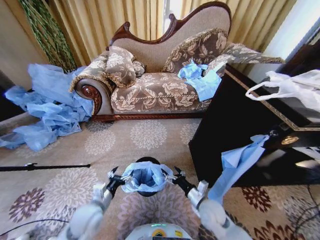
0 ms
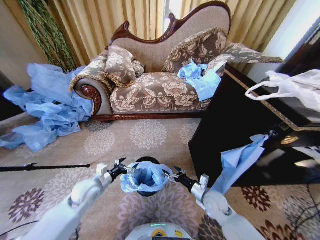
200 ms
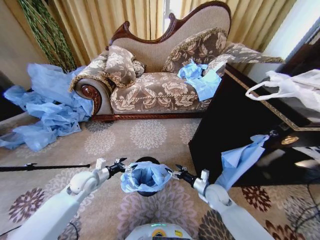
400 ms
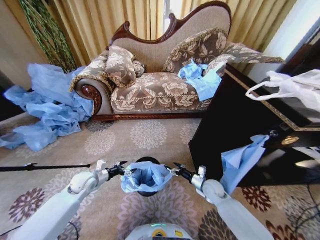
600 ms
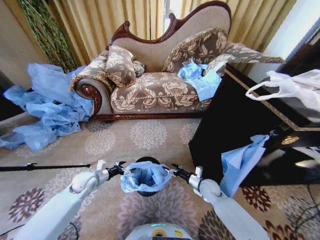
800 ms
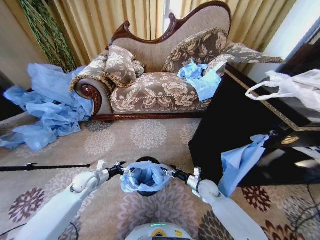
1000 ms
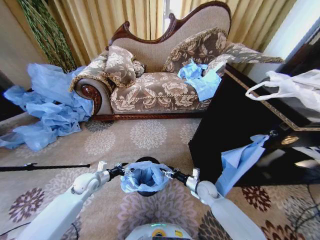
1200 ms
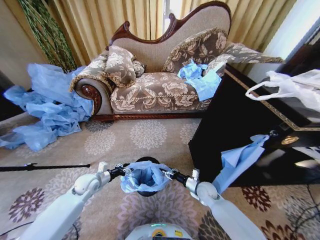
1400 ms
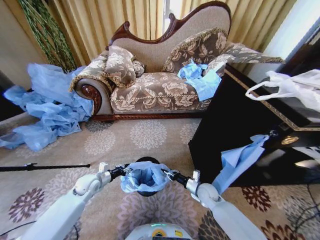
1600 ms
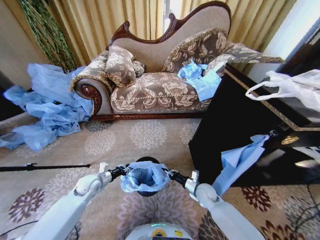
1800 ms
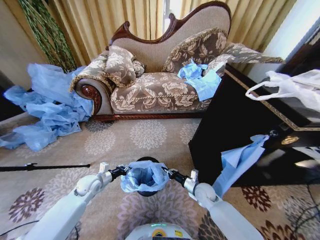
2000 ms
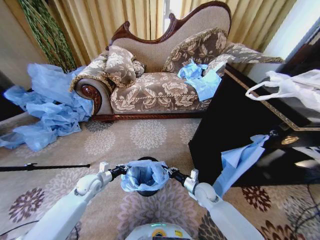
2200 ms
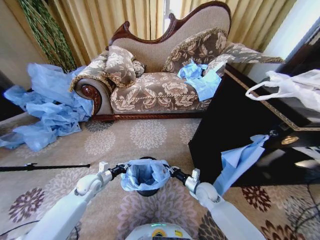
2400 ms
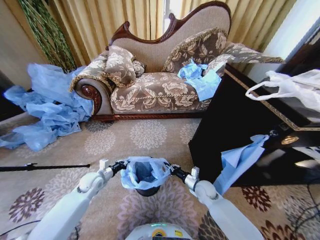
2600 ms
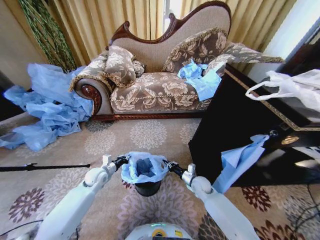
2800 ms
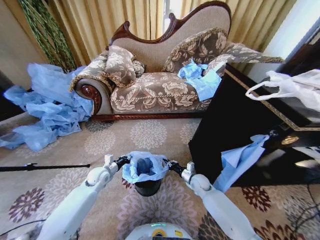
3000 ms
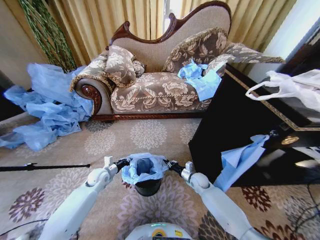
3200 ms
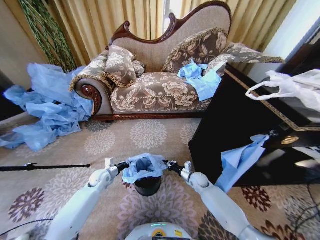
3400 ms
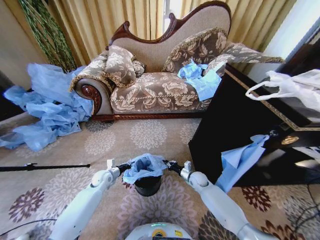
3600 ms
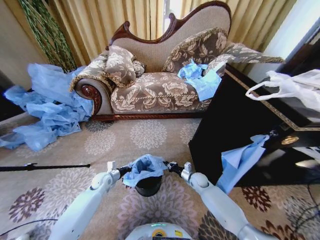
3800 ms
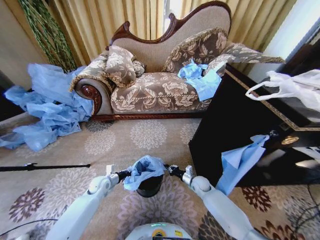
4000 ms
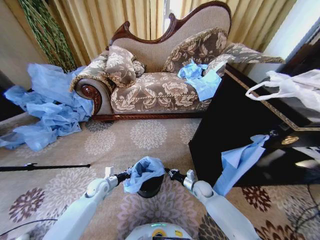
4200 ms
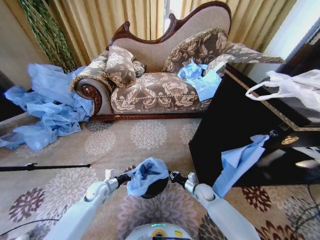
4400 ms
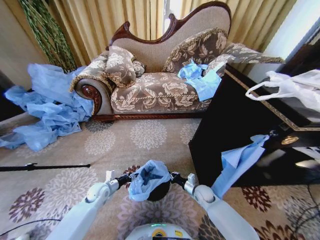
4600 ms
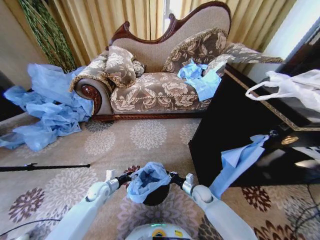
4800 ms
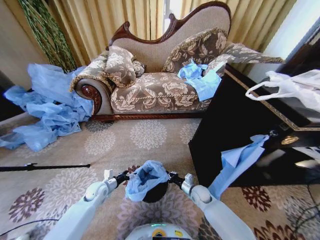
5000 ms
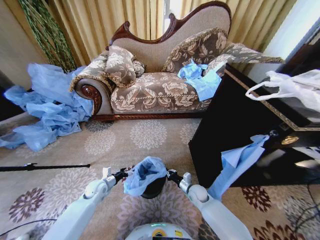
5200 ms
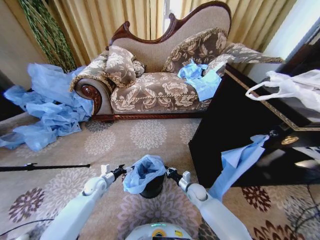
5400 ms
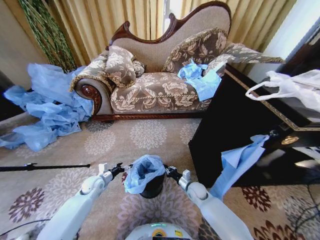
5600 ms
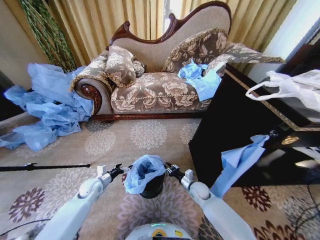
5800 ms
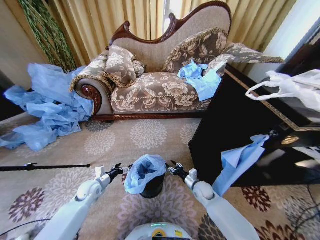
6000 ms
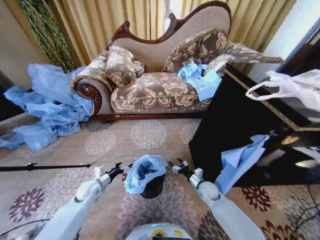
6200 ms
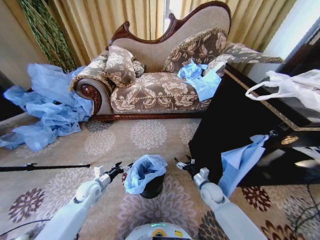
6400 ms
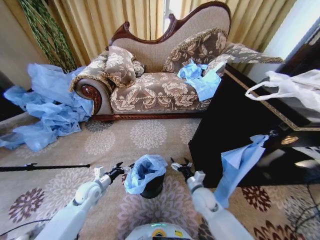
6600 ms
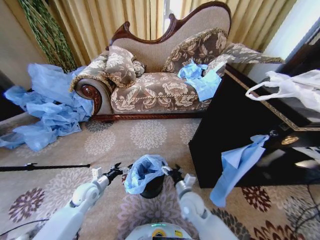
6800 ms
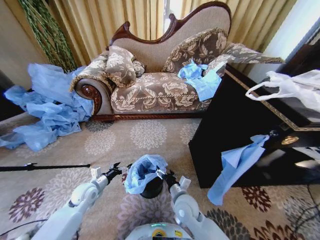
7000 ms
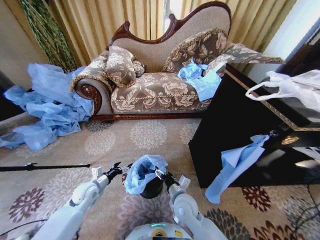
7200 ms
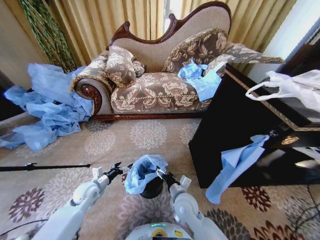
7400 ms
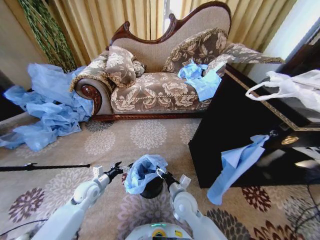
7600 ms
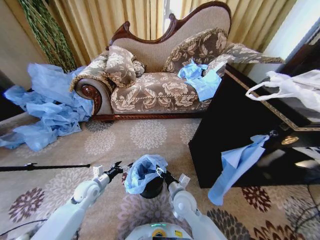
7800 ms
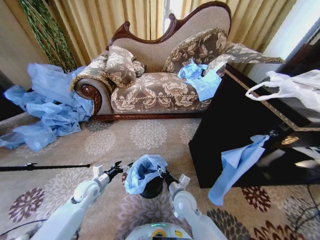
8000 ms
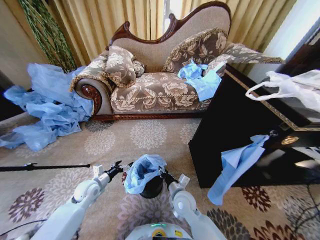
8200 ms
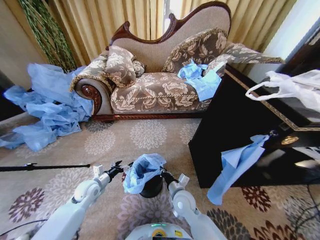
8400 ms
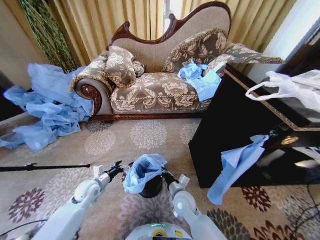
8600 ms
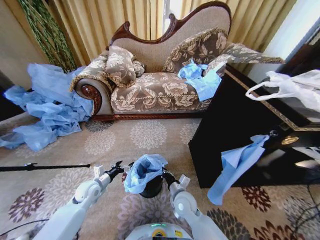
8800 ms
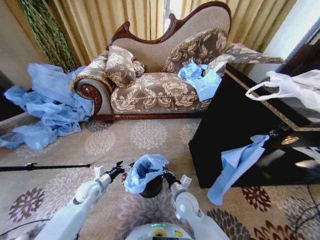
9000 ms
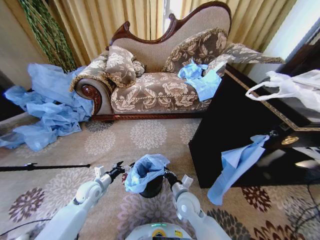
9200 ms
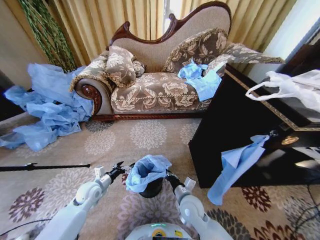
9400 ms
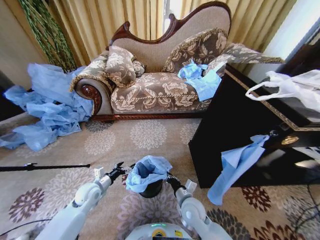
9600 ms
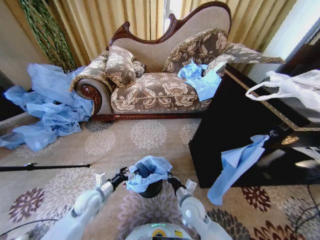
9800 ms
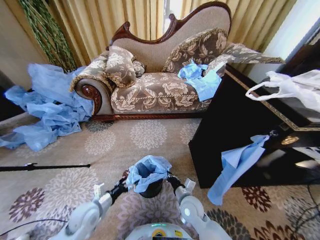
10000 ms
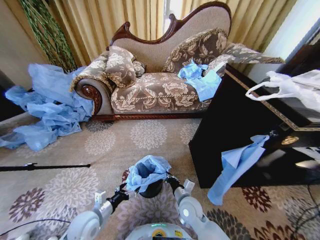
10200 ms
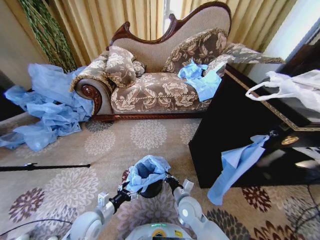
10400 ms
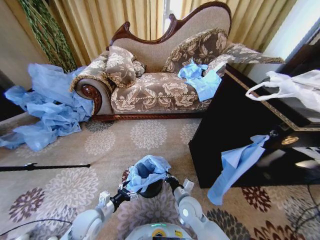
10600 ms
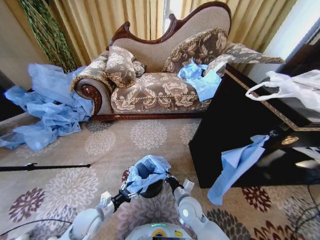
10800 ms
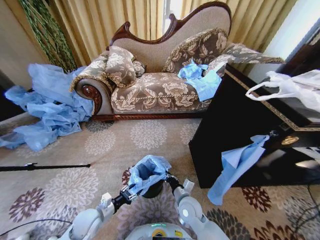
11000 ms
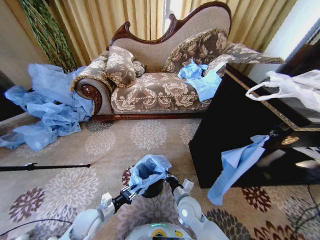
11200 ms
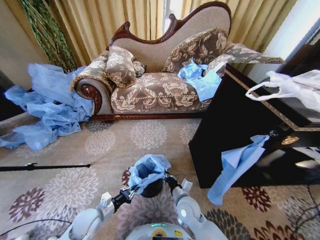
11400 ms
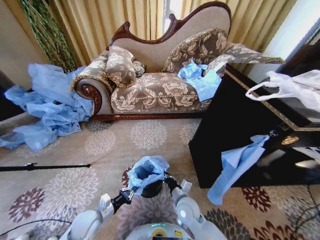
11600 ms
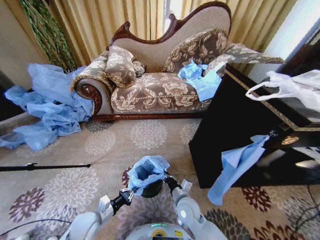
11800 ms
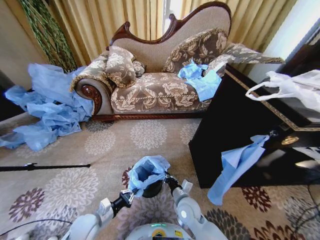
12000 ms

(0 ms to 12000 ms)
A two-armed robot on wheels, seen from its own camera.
Task of the whole recording: Place a garbage bag over the trash bin.
0 ms - 1600 ms: The left gripper heads forward and to the left, covering some 15 cm, and closes. The right gripper moves forward and downward, some 10 cm, and closes.
1600 ms - 3000 ms: The left gripper ends up about 5 cm from where it was, and closes up. Meanwhile the right gripper shifts roughly 5 cm forward.
3000 ms - 4400 ms: The left gripper is displaced backward by some 5 cm; the right gripper changes place by roughly 5 cm.
4400 ms - 6000 ms: The right gripper opens its fingers. The left gripper opens up.
6000 ms - 7600 ms: The right gripper shifts approximately 20 cm to the left, upward and backward, and opens.
7600 ms - 9000 ms: The right gripper closes its fingers.
9000 ms - 10400 ms: The left gripper is displaced backward and to the right by some 15 cm.
10400 ms - 12000 ms: The left gripper closes its fingers.

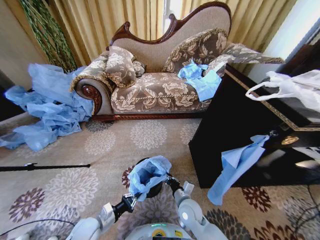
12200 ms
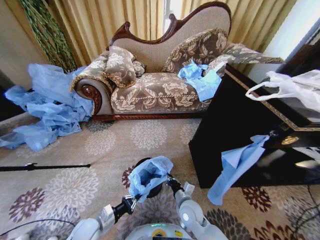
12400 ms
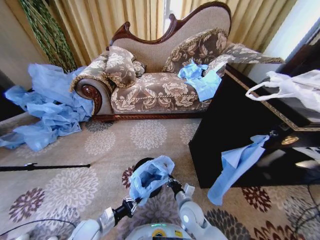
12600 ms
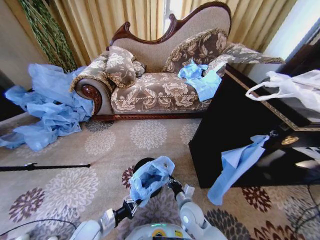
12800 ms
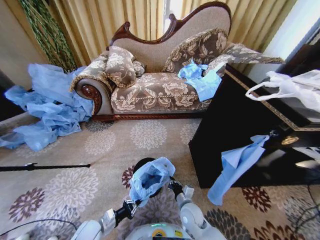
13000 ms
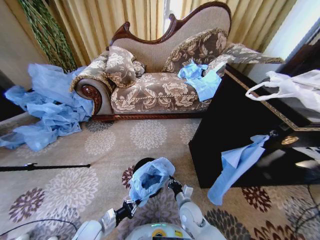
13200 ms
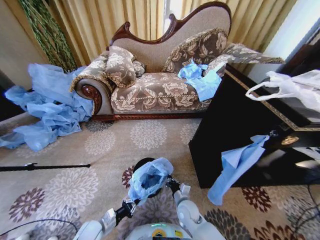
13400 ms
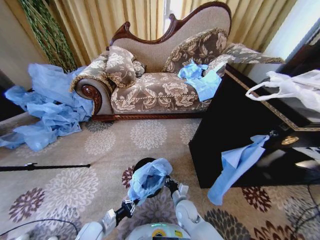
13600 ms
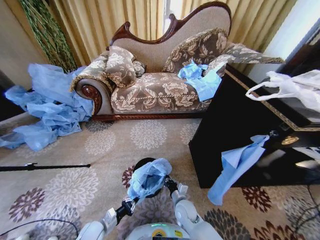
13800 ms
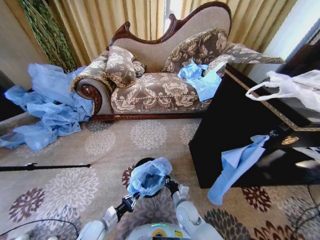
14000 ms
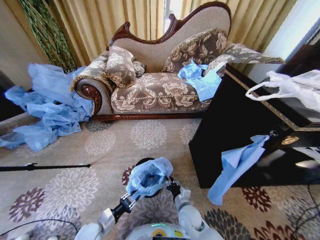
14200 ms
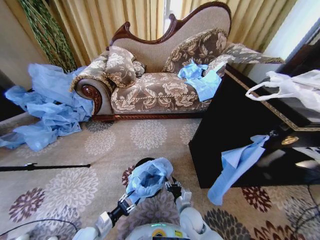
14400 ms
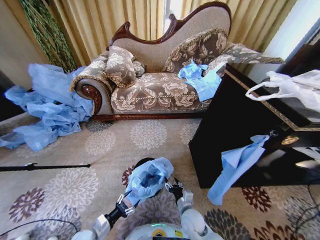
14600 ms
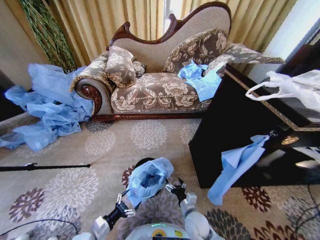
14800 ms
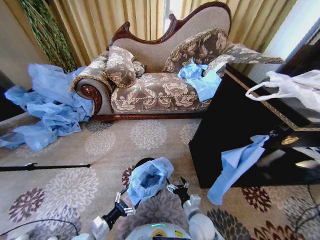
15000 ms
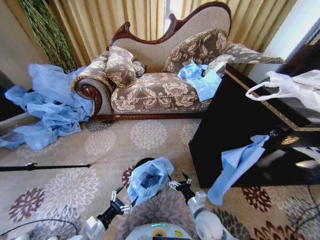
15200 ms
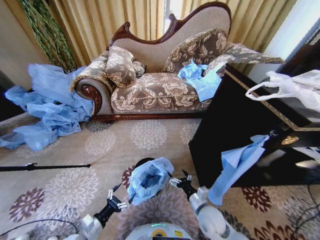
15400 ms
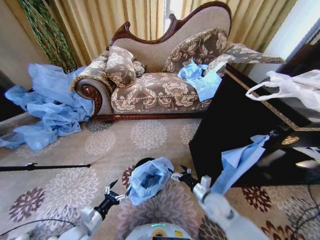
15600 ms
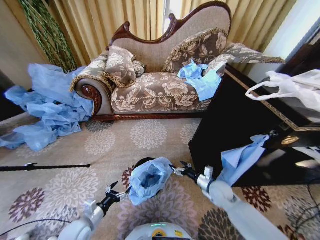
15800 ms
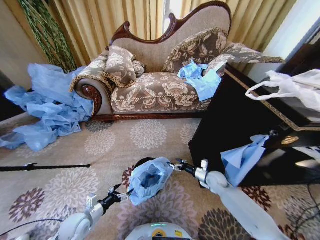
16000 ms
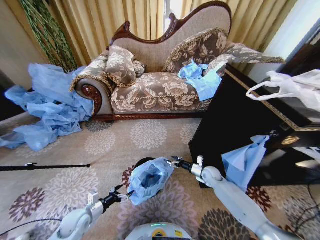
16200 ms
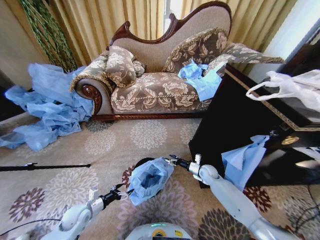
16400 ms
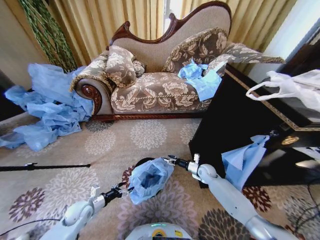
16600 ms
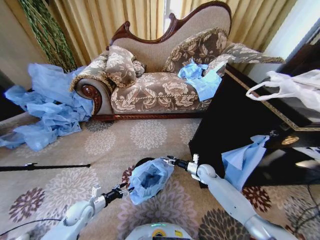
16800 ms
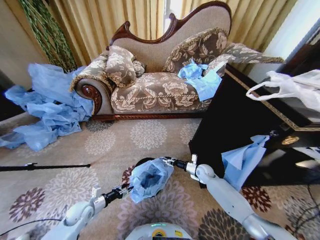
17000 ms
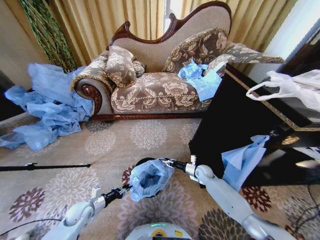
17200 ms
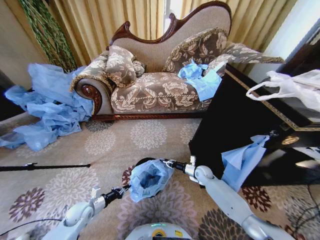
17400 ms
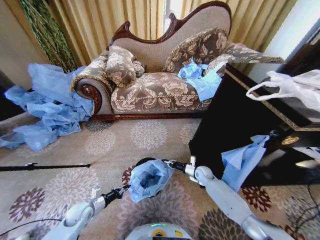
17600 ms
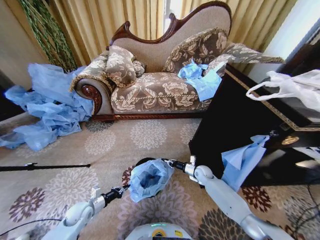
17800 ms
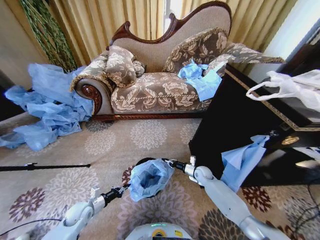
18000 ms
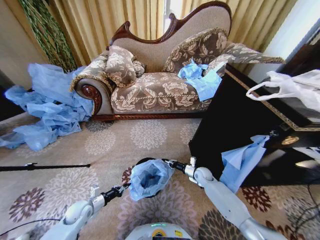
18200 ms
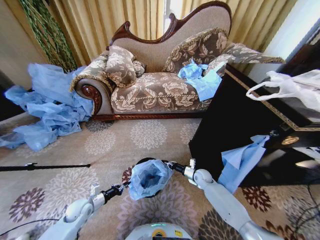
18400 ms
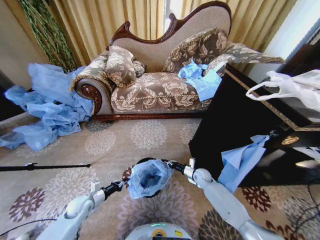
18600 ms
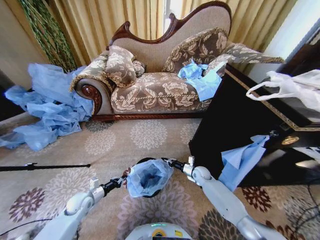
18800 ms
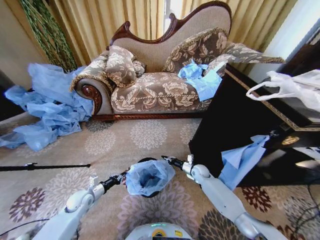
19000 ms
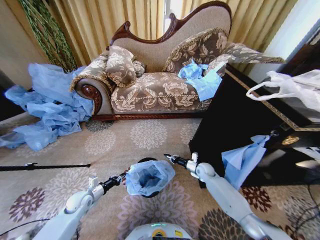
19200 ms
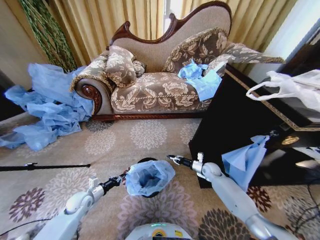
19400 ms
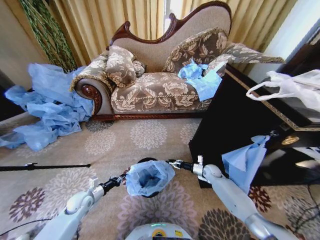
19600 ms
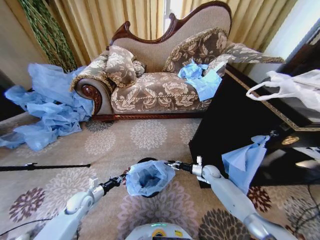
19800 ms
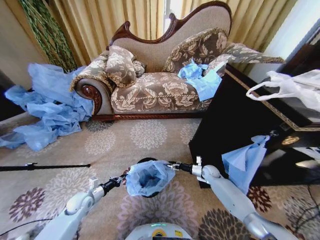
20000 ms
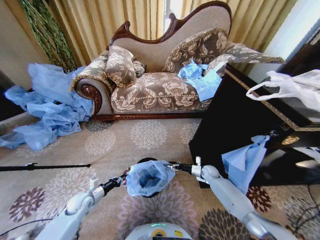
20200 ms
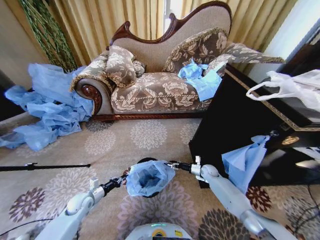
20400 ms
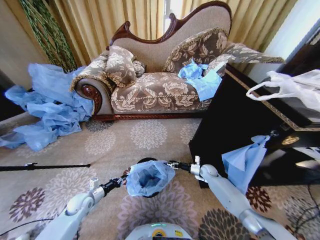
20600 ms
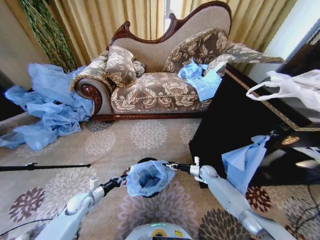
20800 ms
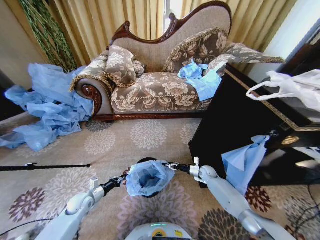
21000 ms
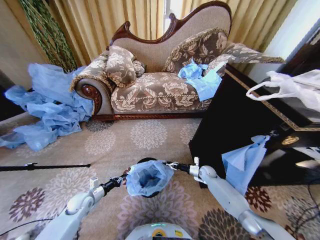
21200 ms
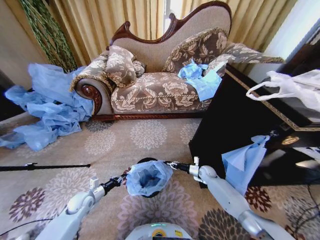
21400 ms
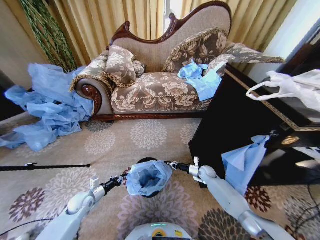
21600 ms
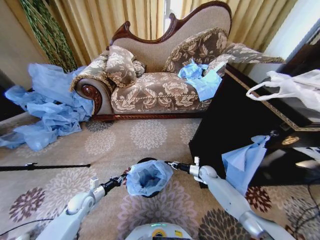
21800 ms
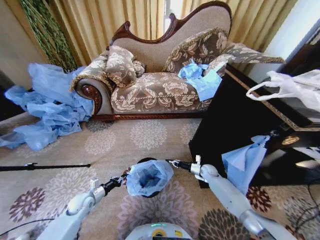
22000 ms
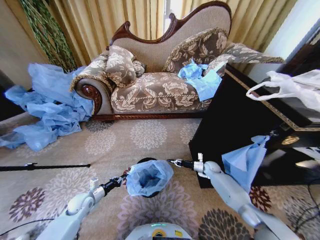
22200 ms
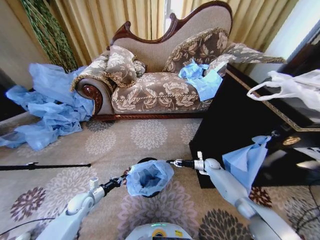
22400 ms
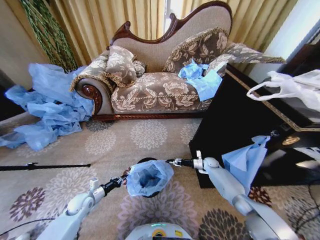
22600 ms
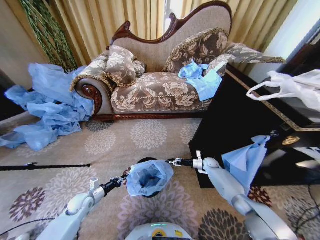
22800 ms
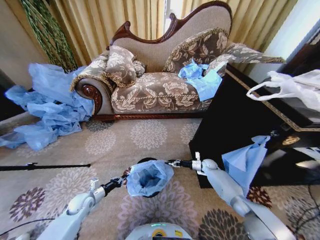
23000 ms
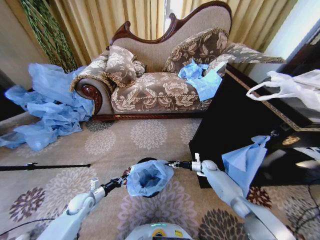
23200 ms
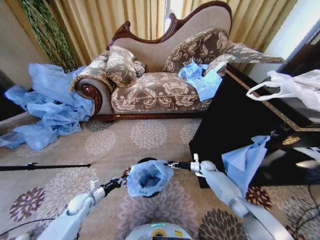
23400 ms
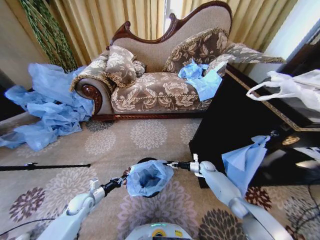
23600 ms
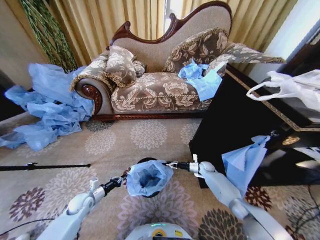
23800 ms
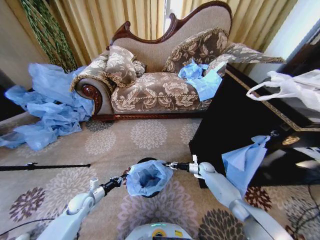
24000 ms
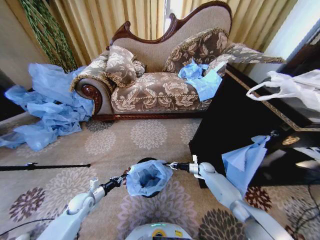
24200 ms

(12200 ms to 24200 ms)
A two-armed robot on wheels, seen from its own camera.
Task of the whole recording: Place a garbage bag over the trash bin.
12200 ms - 13800 ms: Both grippers move downward, roughly 5 cm.
13800 ms - 15200 ms: The right gripper moves to the right, backward and upward, roughly 10 cm, and opens. Meanwhile the left gripper is displaced upward by some 5 cm, and opens up.
15200 ms - 16600 ms: The left gripper moves forward and to the left, approximately 15 cm. Meanwhile the right gripper shifts approximately 25 cm forward.
16600 ms - 18200 ms: The right gripper closes; the left gripper closes.
18200 ms - 19800 ms: The right gripper shifts roughly 5 cm to the right, and opens.
19800 ms - 21200 ms: The right gripper opens and closes again.
21200 ms - 22600 ms: The right gripper shifts roughly 5 cm forward, and closes, then reopens.
22600 ms - 24200 ms: The right gripper opens, then closes again.
